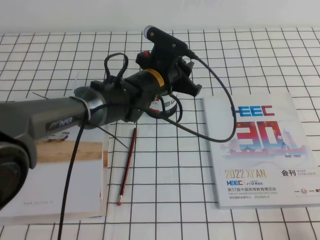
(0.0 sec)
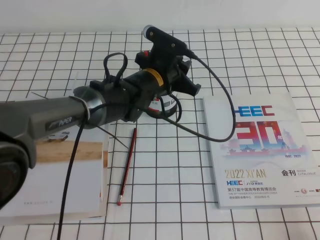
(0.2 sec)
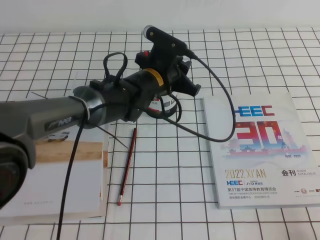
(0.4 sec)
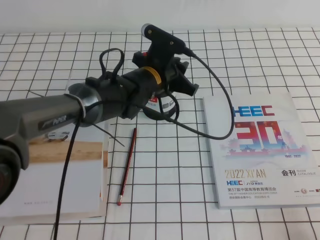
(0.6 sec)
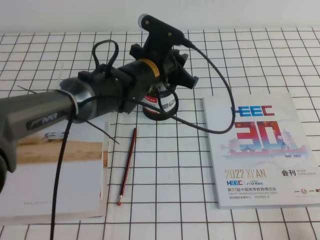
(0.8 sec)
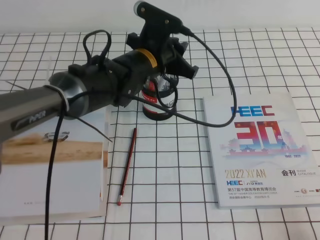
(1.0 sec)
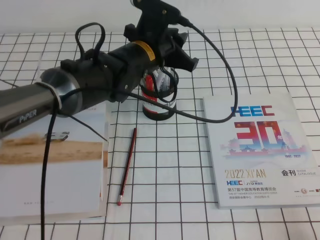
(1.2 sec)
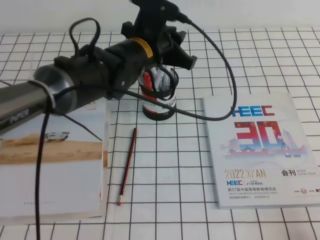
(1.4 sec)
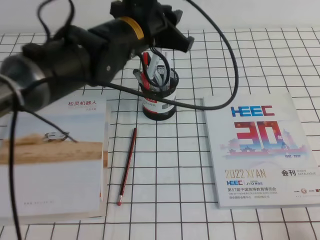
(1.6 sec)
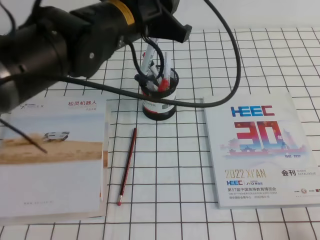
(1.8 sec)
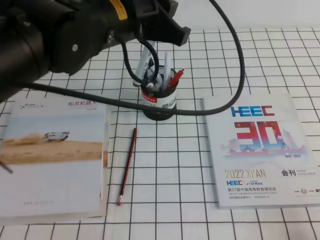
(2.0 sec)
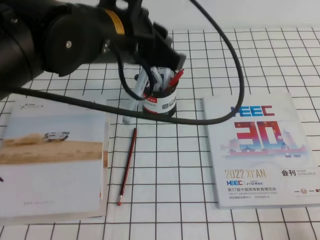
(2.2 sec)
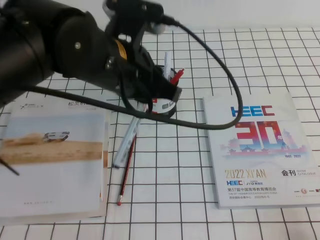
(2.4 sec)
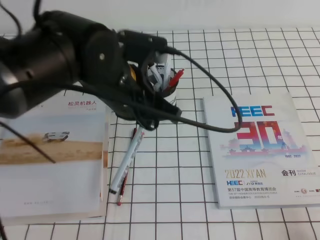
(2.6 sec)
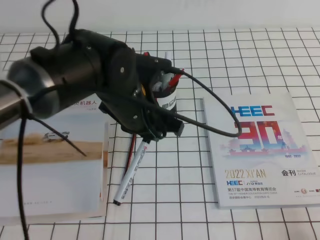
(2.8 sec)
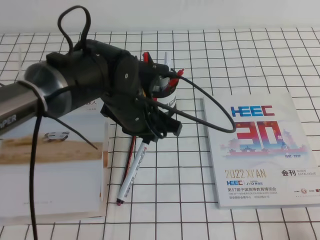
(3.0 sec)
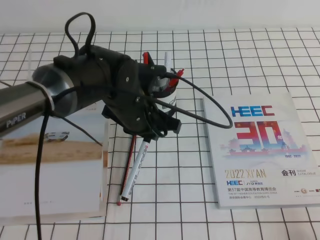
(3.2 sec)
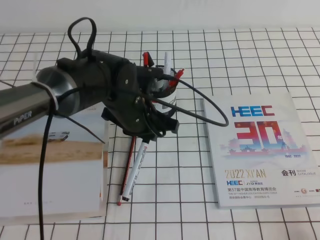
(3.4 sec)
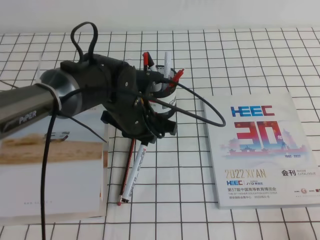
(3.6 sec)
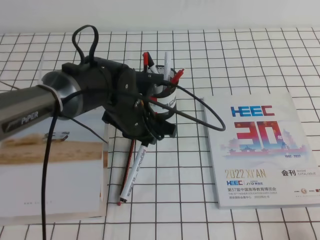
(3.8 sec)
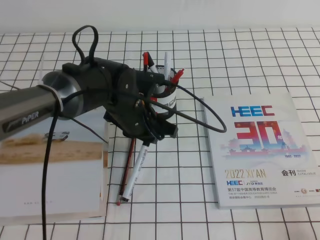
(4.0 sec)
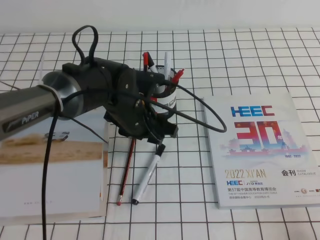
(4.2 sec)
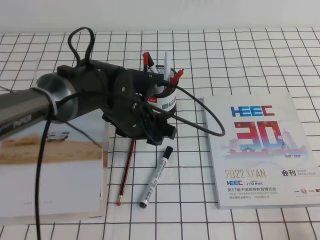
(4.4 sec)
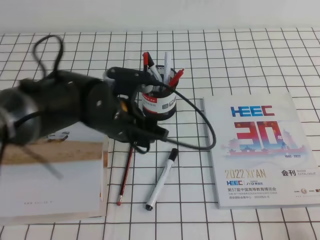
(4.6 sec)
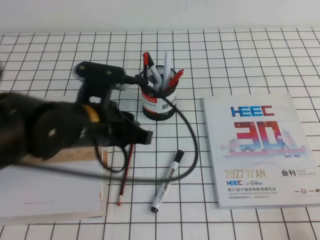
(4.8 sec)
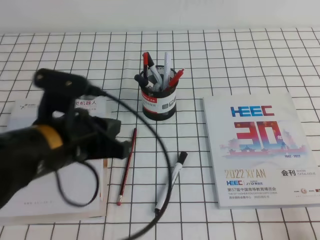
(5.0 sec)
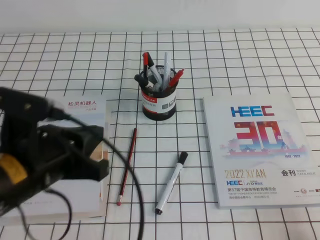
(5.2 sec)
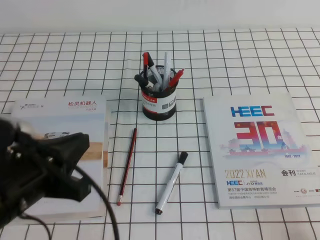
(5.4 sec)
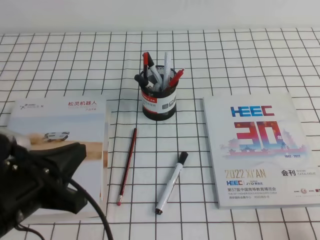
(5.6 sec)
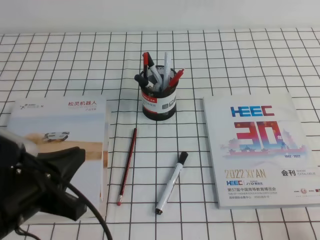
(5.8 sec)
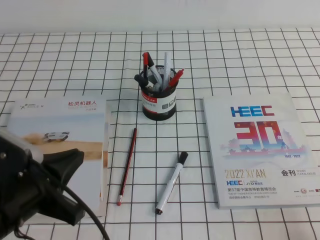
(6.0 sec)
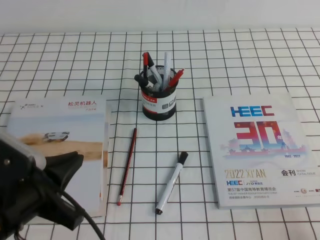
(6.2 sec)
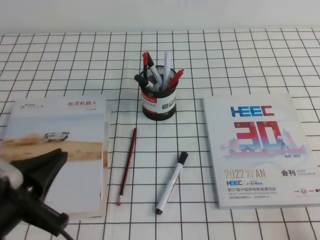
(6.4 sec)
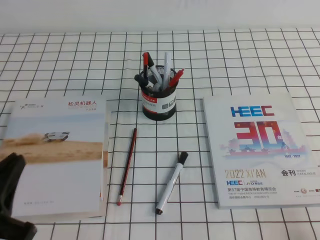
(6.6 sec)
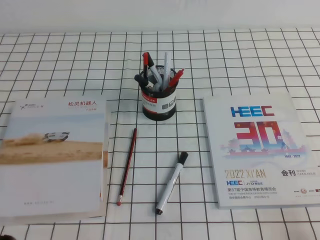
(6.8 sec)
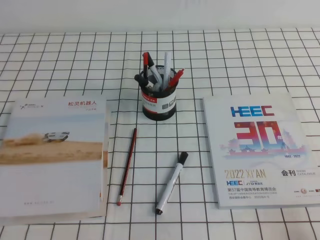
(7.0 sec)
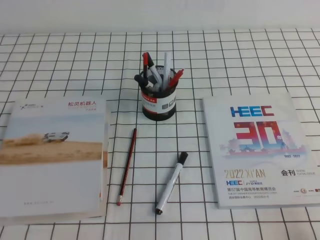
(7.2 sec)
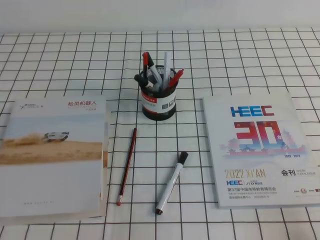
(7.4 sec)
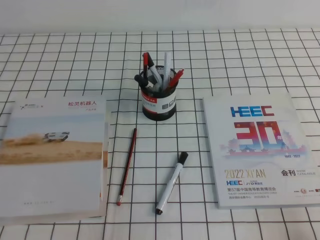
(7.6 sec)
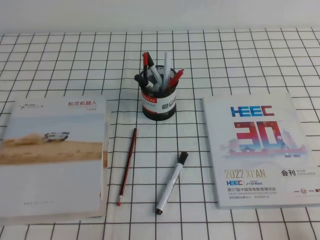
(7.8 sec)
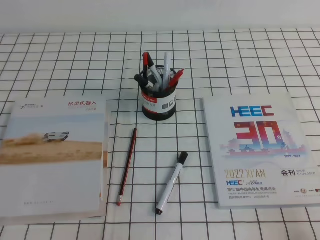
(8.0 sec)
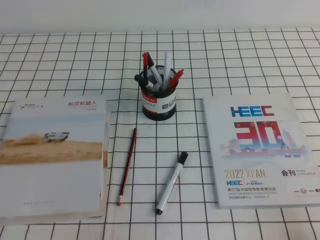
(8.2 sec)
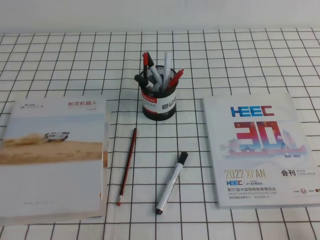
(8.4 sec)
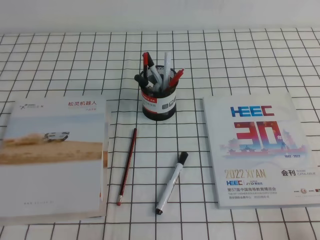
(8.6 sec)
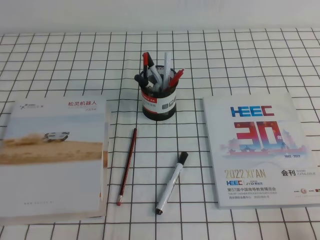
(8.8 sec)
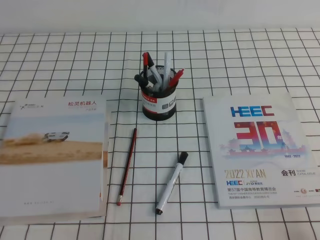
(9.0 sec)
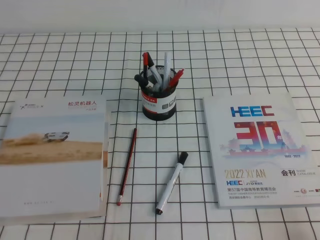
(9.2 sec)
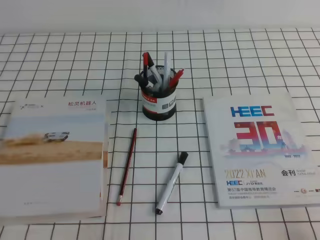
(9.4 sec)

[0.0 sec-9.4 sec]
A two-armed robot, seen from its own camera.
Step, 0.0 sec to 9.4 sec: Pick up the pen from the pen holder.
0.0 sec to 1.6 sec: The left gripper travels upward by roughly 10 cm.
1.6 sec to 3.2 sec: The left gripper goes approximately 10 cm downward.
3.2 sec to 4.8 sec: The left gripper travels backward and to the left by roughly 10 cm, and opens, then closes once more.
4.8 sec to 6.2 sec: The left gripper shifts approximately 15 cm backward and to the left, and closes.
6.2 sec to 7.8 sec: The left gripper is displaced downward, to the left and backward by roughly 15 cm.
7.8 sec to 9.4 sec: The two grippers keep their place.
